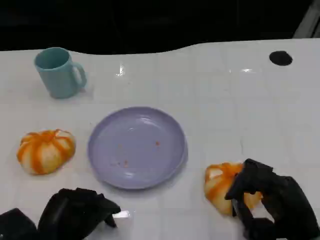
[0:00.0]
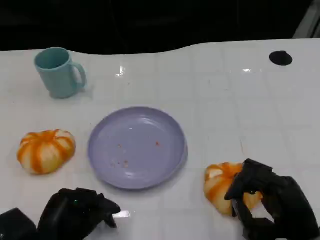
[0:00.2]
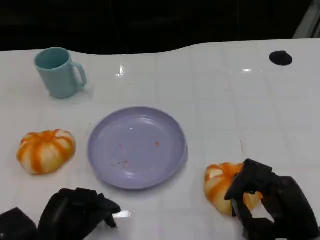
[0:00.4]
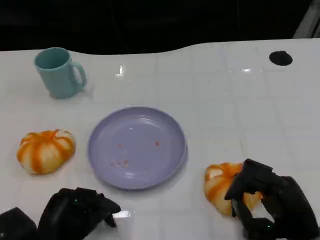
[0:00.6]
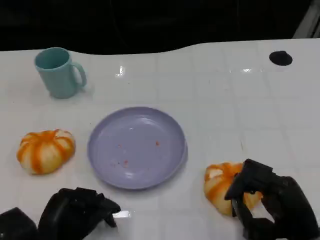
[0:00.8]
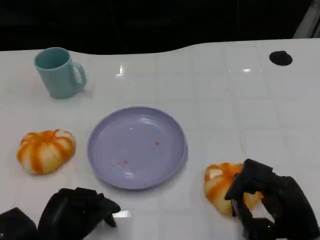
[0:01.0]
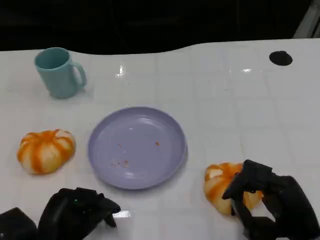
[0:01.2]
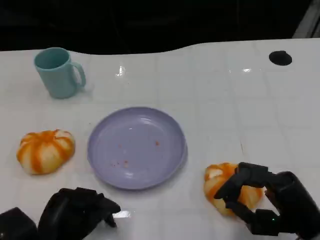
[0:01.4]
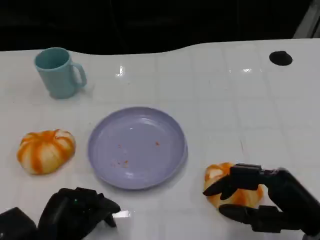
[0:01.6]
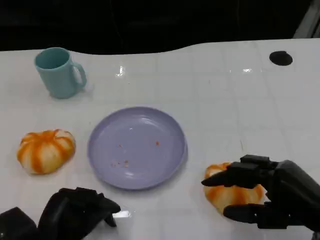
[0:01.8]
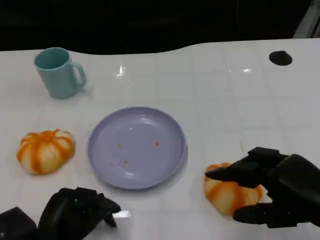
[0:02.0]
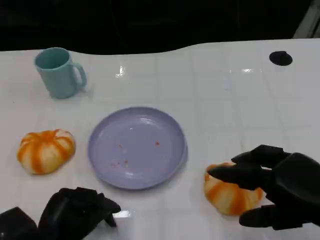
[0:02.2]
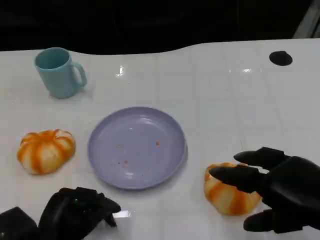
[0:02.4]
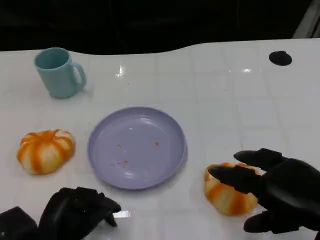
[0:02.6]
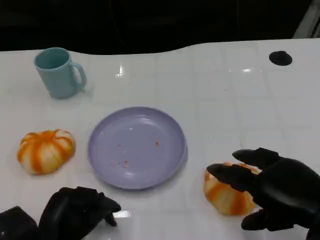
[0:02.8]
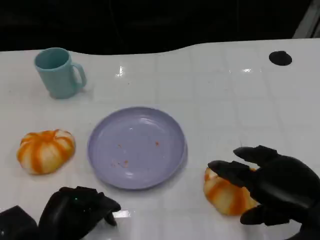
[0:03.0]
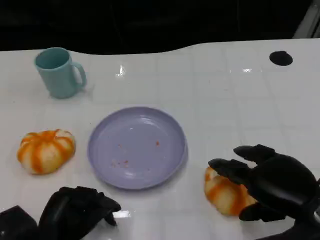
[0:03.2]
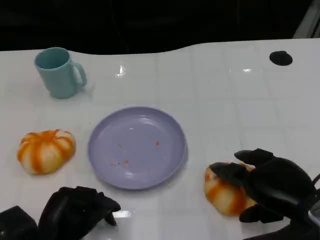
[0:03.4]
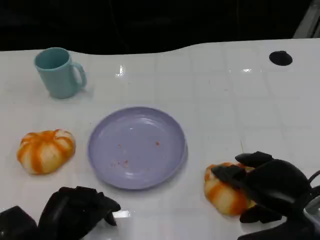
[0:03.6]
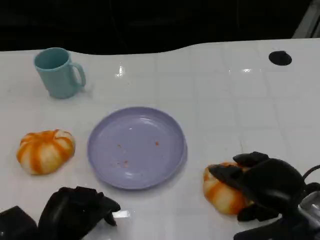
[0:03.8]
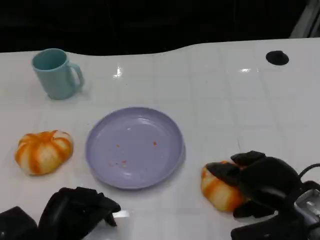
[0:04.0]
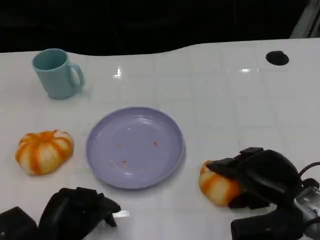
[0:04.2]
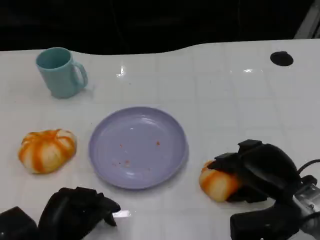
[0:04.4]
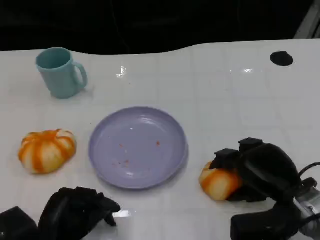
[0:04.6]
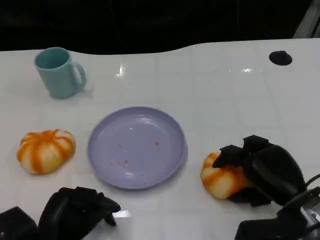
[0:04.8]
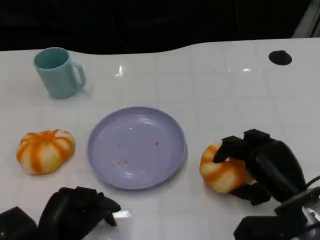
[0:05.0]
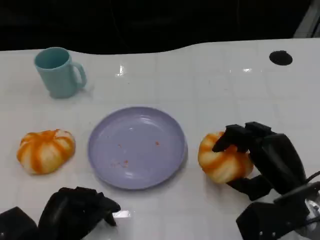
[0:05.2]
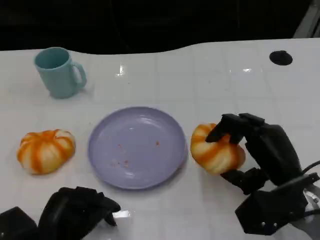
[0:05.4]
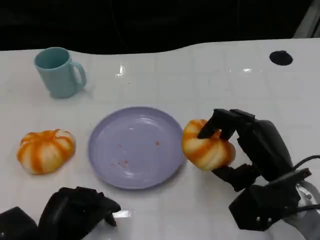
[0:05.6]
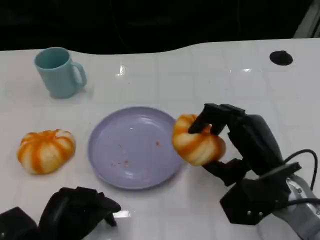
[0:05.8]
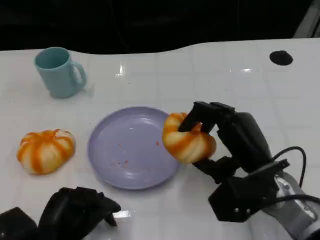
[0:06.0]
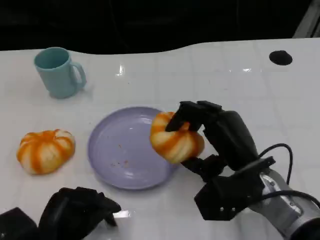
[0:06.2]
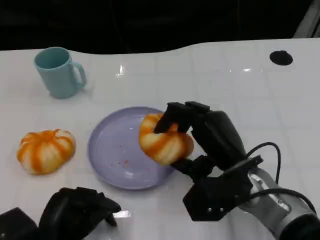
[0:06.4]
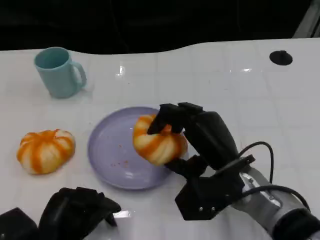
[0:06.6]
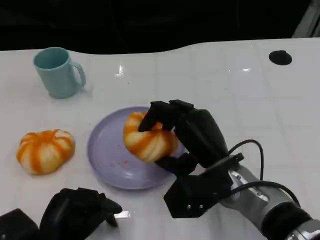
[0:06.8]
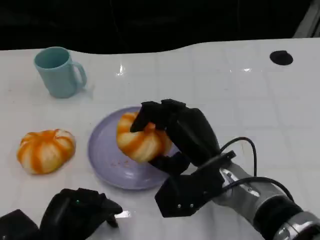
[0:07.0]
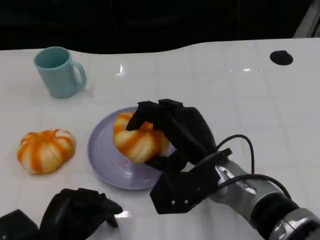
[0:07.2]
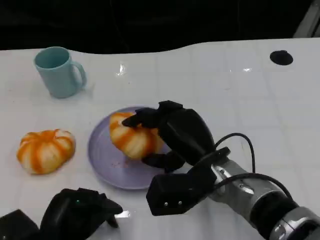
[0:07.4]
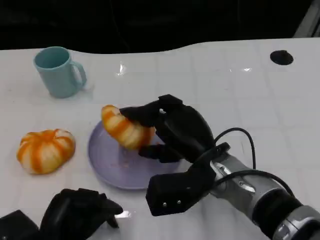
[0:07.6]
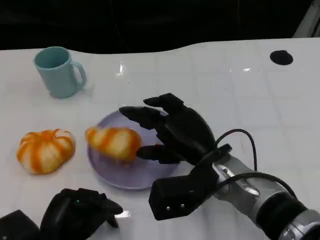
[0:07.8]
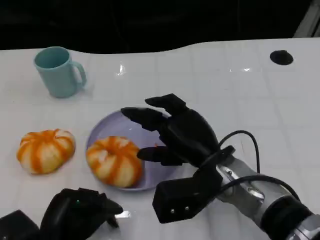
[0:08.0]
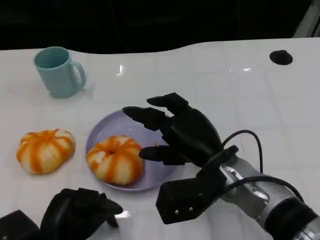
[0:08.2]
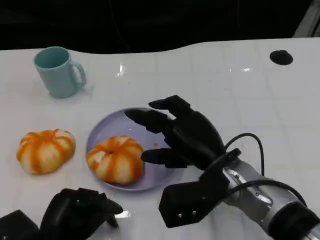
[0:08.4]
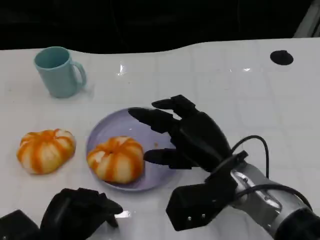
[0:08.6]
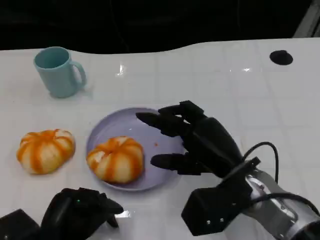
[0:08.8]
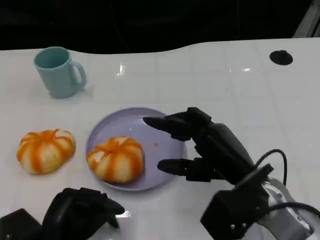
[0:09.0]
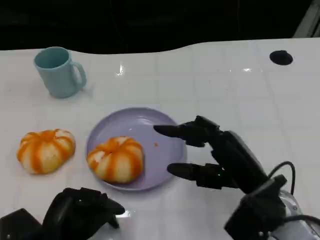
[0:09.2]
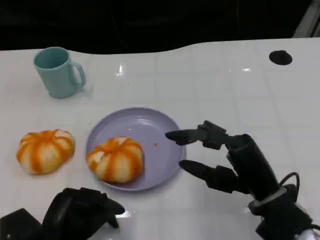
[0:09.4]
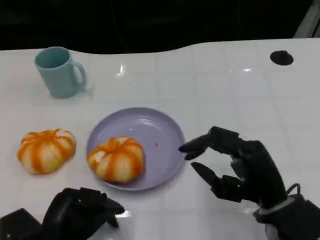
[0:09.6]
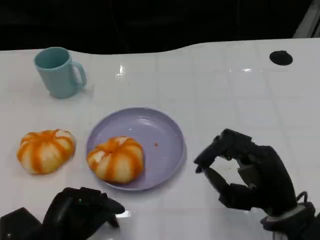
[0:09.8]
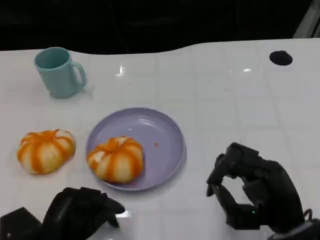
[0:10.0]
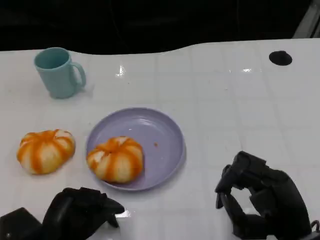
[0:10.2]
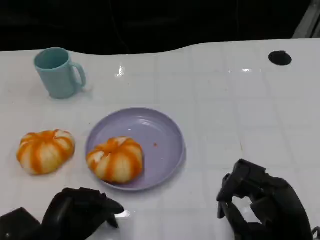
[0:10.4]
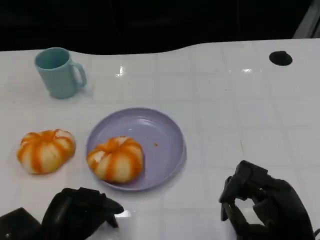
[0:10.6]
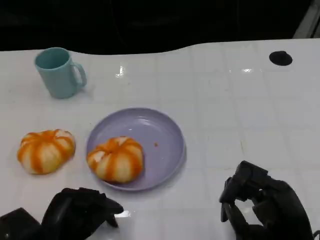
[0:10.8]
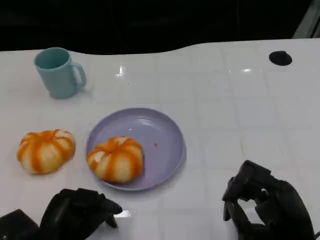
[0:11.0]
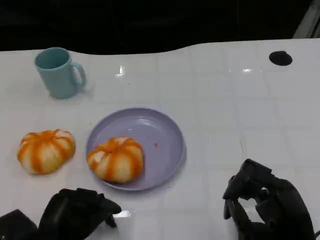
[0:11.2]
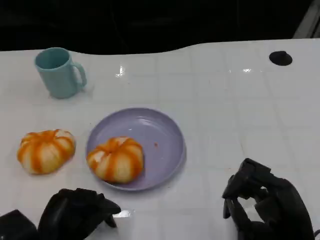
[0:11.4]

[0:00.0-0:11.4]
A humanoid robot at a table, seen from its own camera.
Task of the whole recording: Grasp the bread from the table and place it into the plate.
0:00.0 to 0:01.4: The hands stay close to where they were, moving slightly.
0:01.4 to 0:02.8: The right hand travels upward by some 5 cm.
0:02.8 to 0:04.2: The right hand moves downward and forward, some 10 cm.
0:05.6 to 0:07.2: The right hand shifts some 10 cm to the left.
0:07.2 to 0:08.6: The hands make only small movements.
0:08.6 to 0:10.0: The right hand moves to the right and backward, about 10 cm.
0:10.0 to 0:11.4: The hands make only small movements.

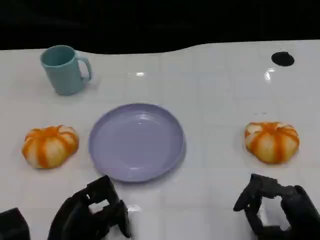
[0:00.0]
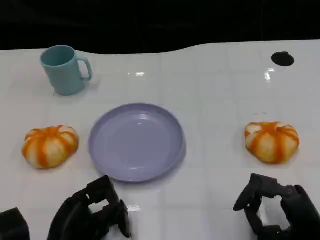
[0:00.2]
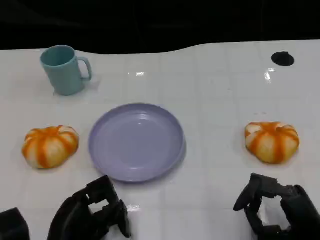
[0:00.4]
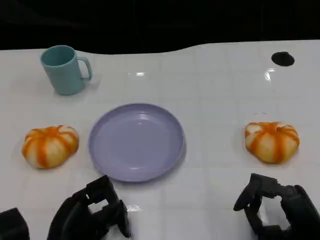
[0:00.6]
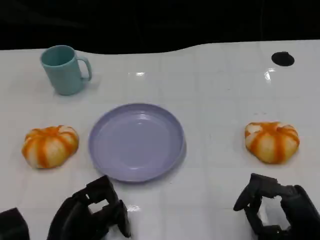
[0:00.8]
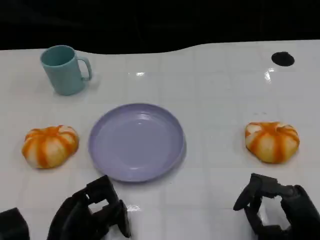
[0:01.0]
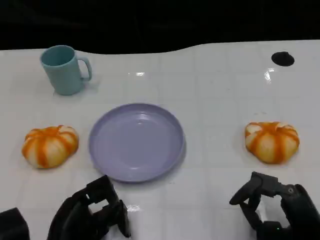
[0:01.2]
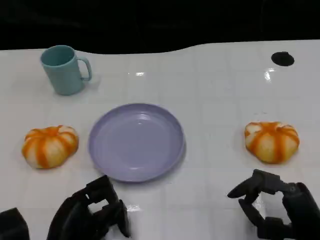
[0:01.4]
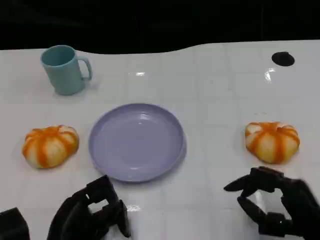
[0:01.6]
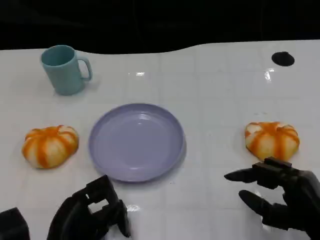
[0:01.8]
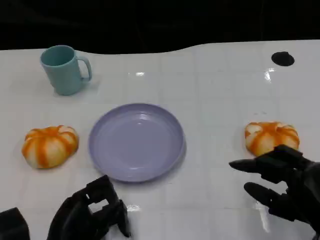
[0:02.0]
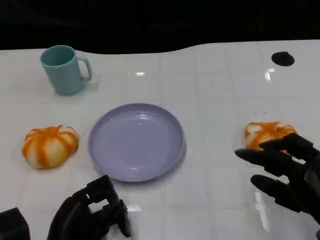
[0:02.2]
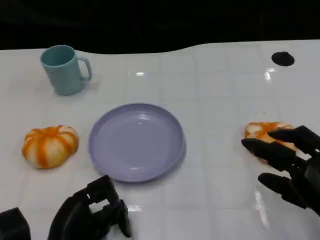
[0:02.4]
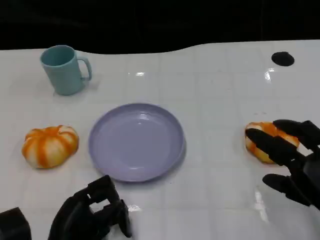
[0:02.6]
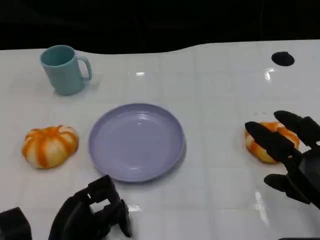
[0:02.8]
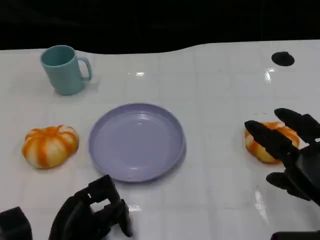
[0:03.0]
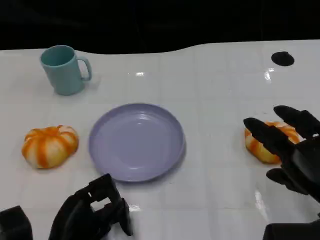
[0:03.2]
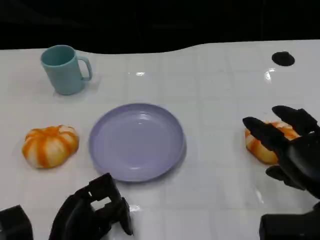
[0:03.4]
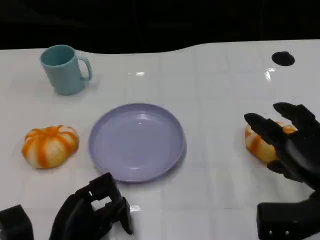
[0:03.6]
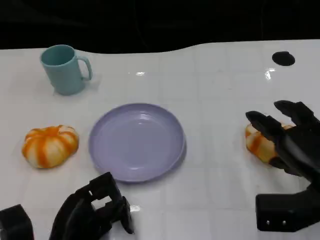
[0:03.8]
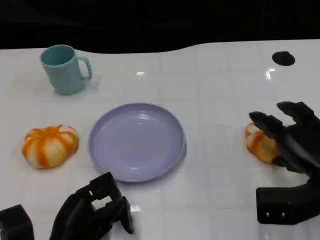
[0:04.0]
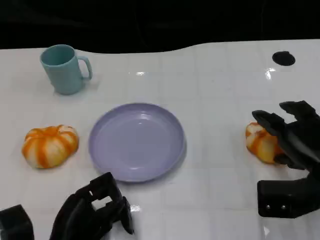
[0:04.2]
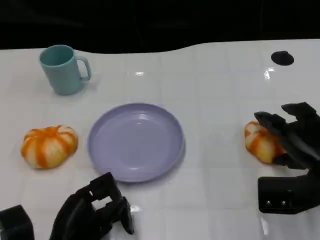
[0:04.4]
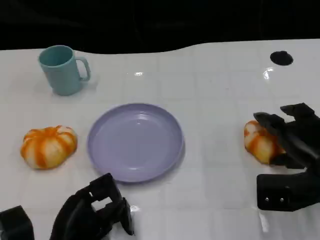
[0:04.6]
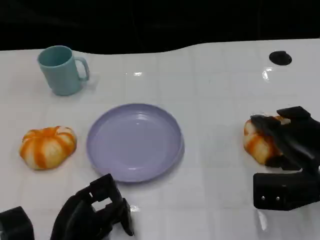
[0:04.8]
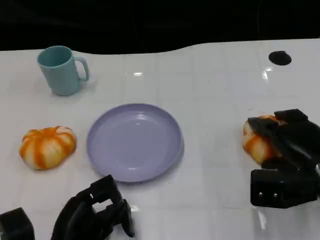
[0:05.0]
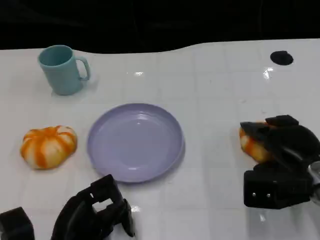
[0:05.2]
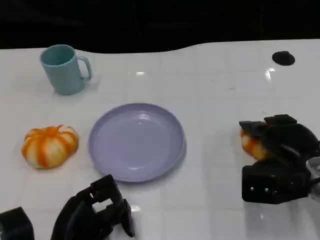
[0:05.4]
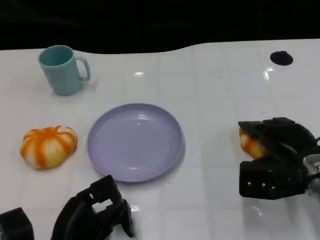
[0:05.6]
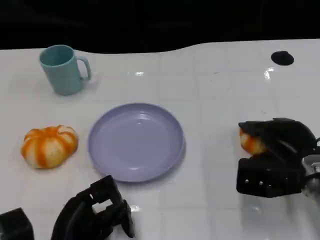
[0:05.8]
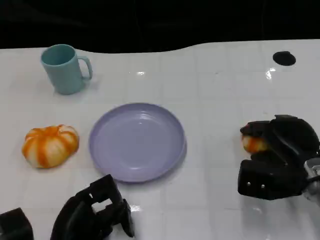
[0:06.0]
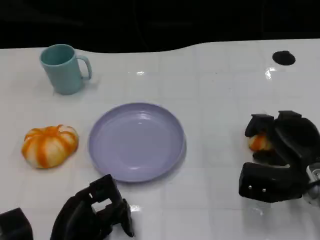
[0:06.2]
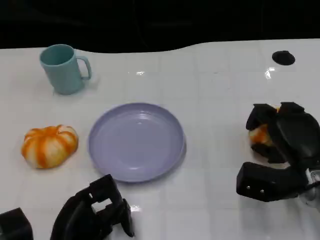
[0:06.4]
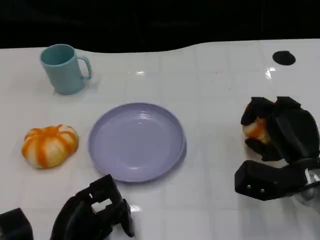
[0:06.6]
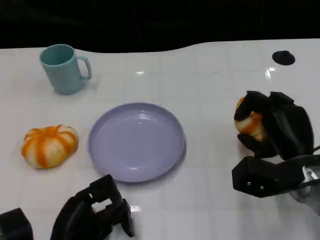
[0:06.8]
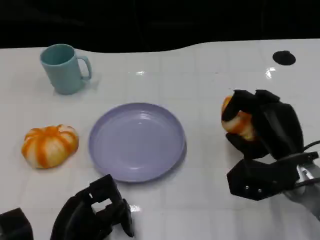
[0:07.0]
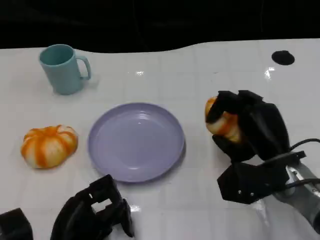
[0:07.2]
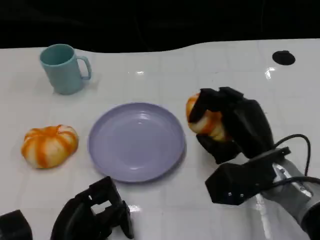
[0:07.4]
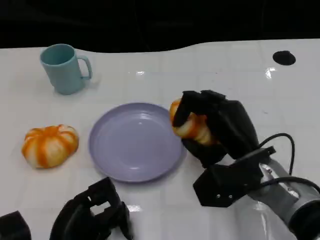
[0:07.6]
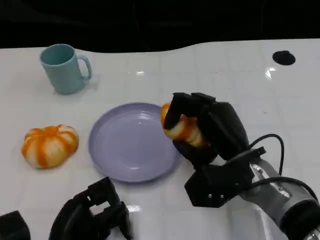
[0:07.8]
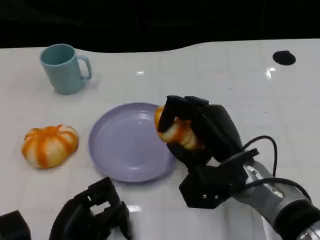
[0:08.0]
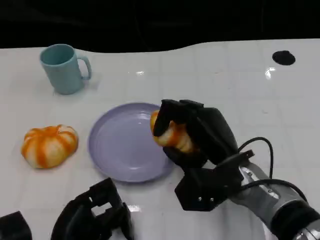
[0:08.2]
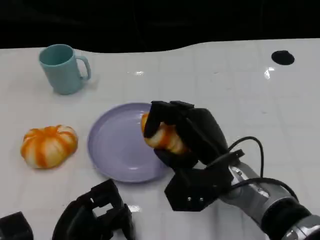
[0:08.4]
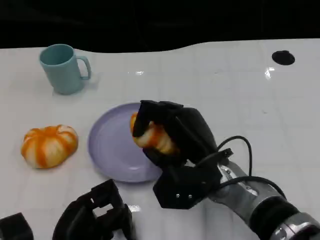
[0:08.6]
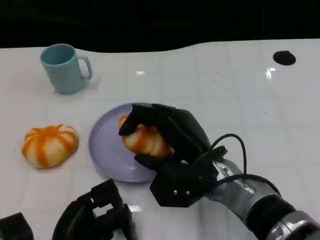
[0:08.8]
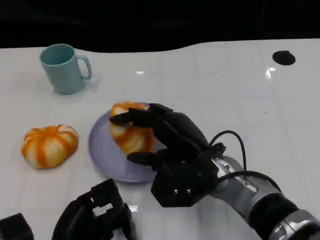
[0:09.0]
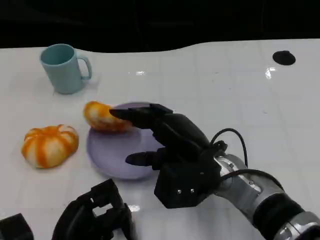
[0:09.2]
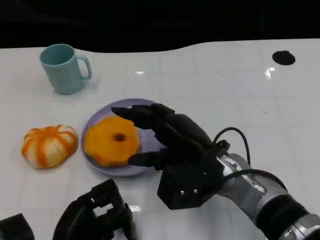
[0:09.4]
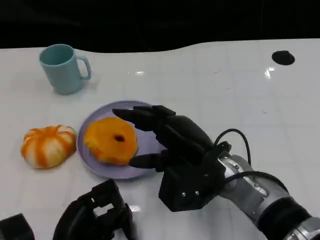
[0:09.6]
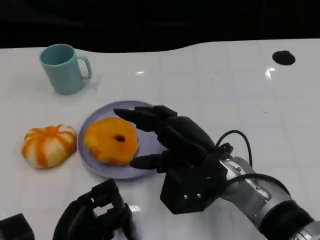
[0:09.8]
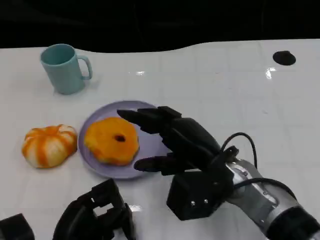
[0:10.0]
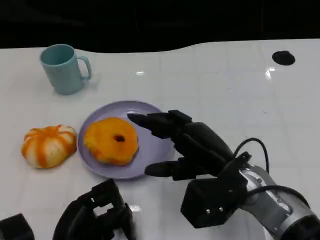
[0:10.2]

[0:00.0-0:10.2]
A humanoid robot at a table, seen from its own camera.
Task of the whole recording: Grasp the bread from the table and place it into the plate.
0:00.0 to 0:01.4: Neither hand changes place.
0:01.4 to 0:03.0: The right hand goes about 5 cm upward.
0:03.0 to 0:04.4: The right hand goes roughly 10 cm forward.
0:04.4 to 0:05.8: The hands move only a little.
0:05.8 to 0:07.2: The right hand heads to the left, covering about 5 cm.
0:07.2 to 0:08.8: The right hand is displaced to the left by roughly 10 cm.
0:08.8 to 0:10.2: The right hand goes about 5 cm to the right.

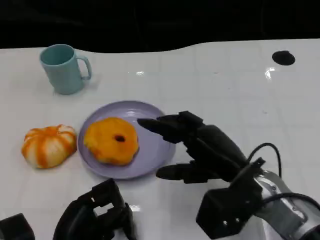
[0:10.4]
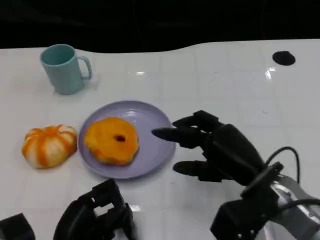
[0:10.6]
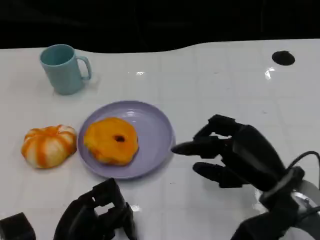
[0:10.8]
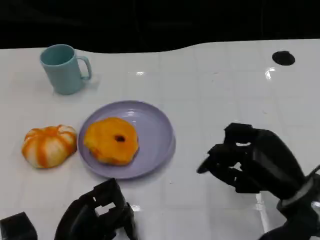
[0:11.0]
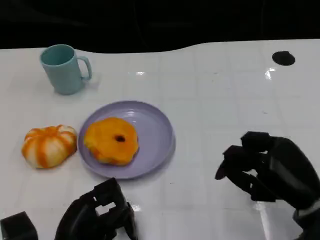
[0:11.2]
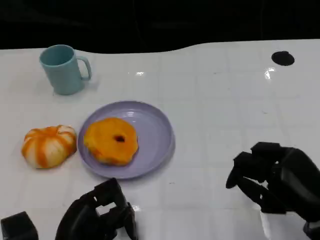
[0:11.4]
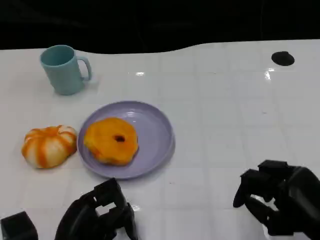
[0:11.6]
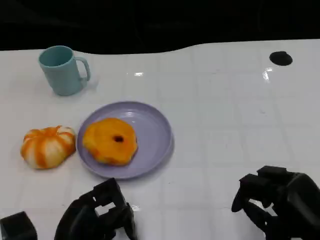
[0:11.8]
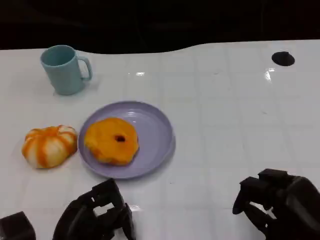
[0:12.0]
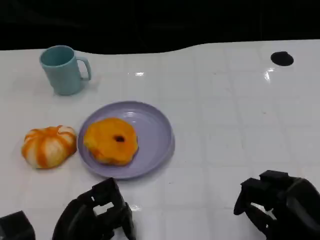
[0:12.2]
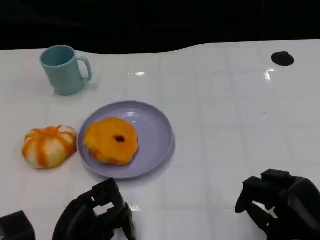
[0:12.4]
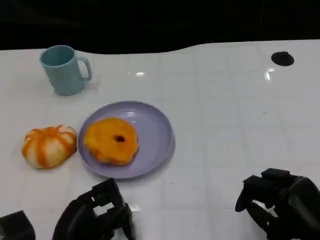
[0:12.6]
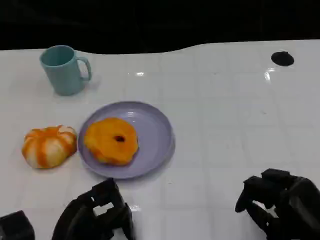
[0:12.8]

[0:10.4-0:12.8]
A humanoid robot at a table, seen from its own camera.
Task of the whole recording: Grasp the bread from the table and place it into the plate.
0:10.4 to 0:11.6: The right hand heads to the right and backward, covering approximately 15 cm.
0:11.6 to 0:12.8: There are only small adjustments of the hands.
